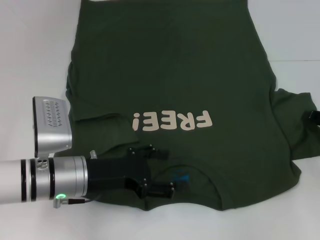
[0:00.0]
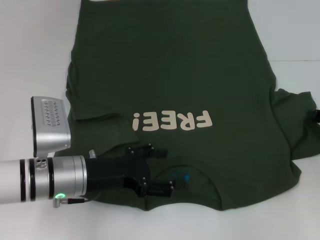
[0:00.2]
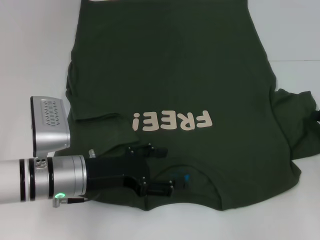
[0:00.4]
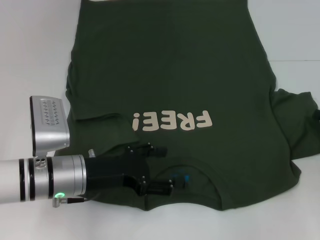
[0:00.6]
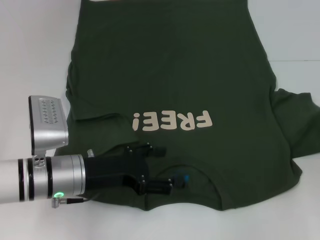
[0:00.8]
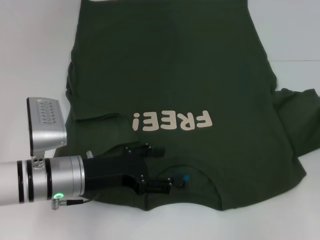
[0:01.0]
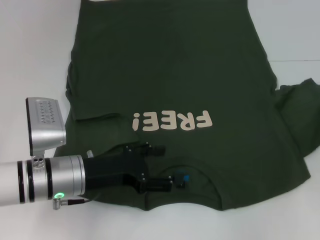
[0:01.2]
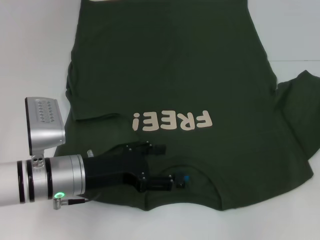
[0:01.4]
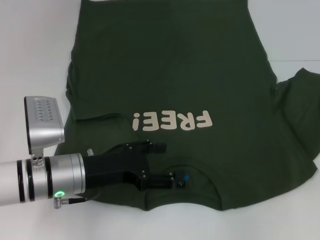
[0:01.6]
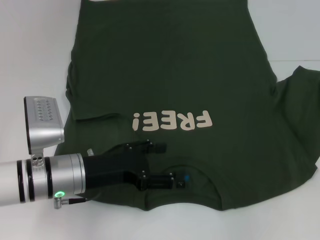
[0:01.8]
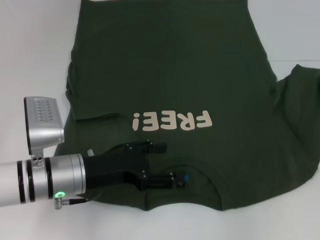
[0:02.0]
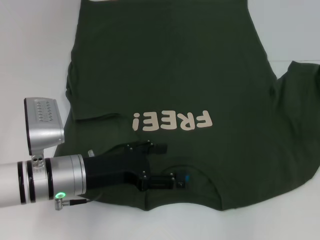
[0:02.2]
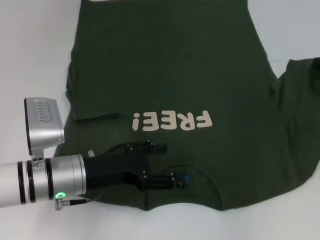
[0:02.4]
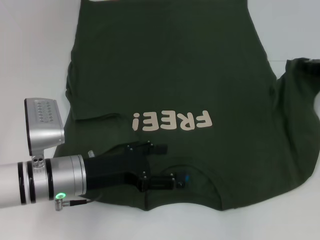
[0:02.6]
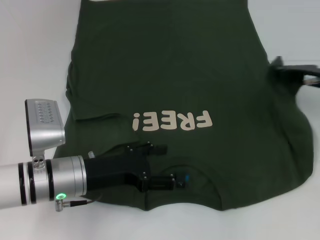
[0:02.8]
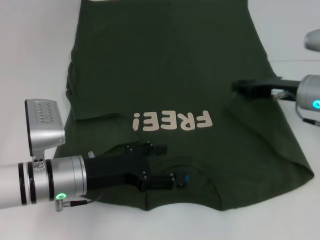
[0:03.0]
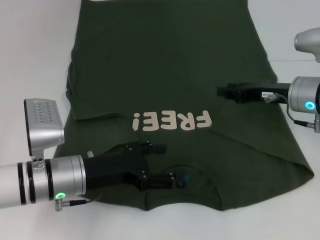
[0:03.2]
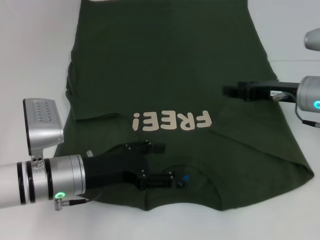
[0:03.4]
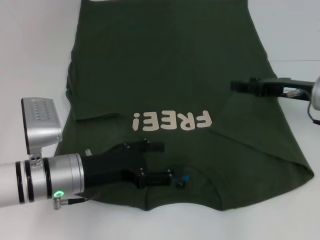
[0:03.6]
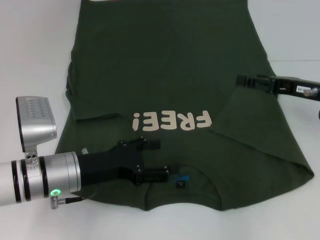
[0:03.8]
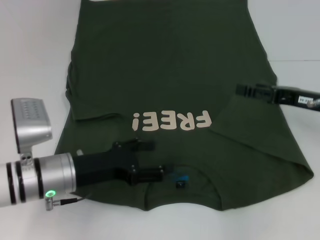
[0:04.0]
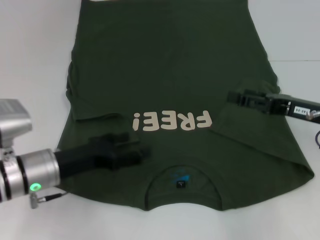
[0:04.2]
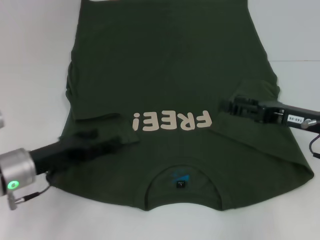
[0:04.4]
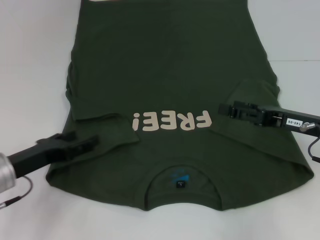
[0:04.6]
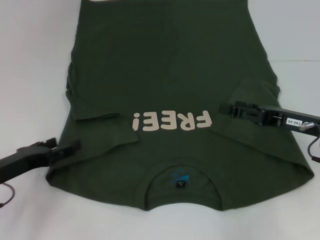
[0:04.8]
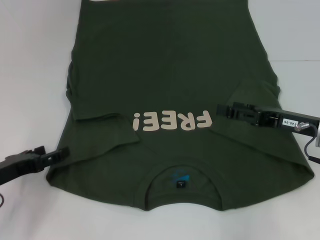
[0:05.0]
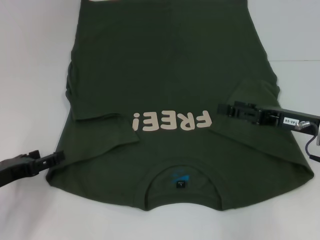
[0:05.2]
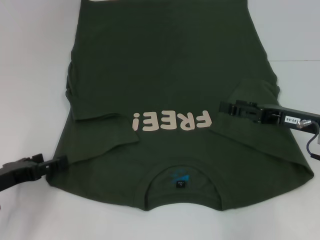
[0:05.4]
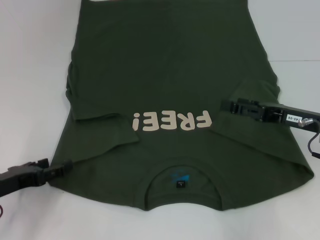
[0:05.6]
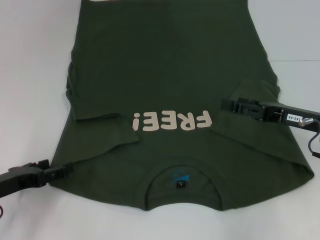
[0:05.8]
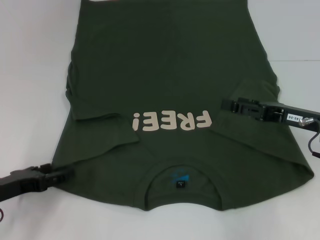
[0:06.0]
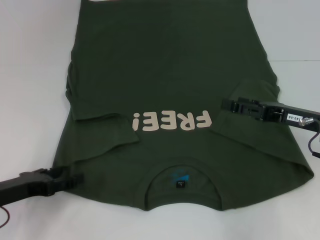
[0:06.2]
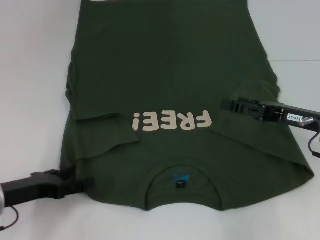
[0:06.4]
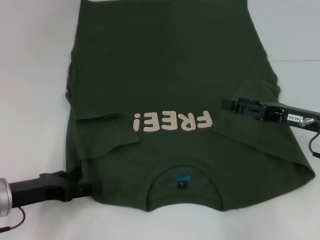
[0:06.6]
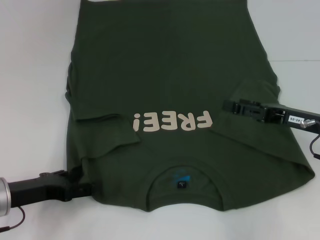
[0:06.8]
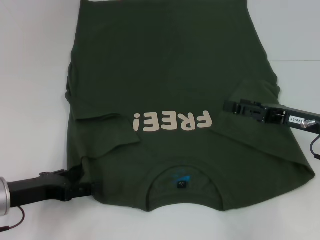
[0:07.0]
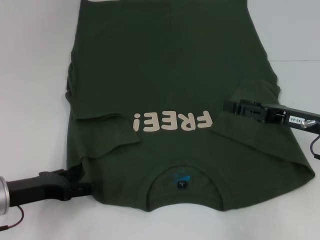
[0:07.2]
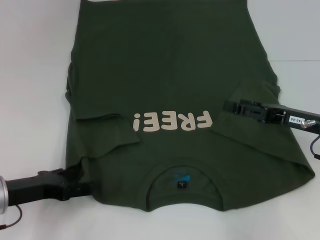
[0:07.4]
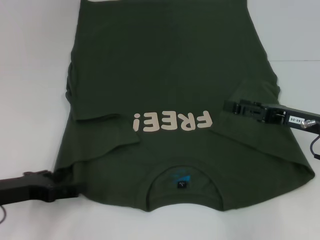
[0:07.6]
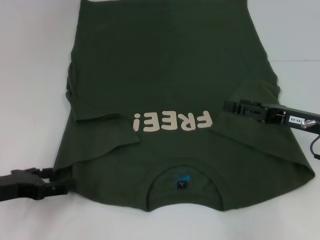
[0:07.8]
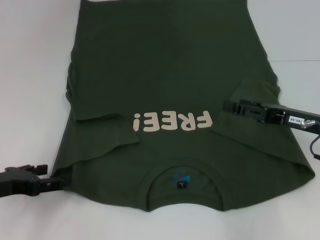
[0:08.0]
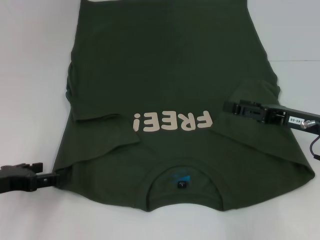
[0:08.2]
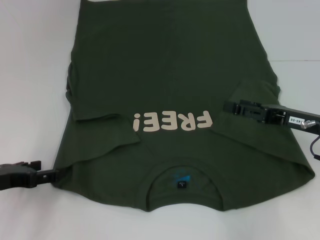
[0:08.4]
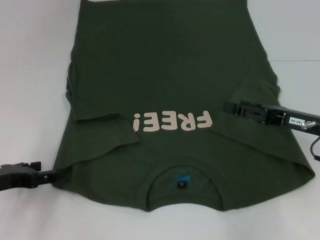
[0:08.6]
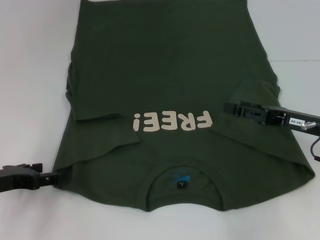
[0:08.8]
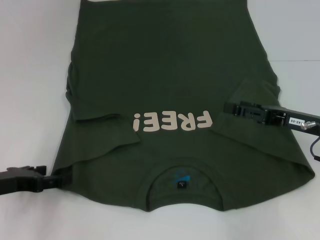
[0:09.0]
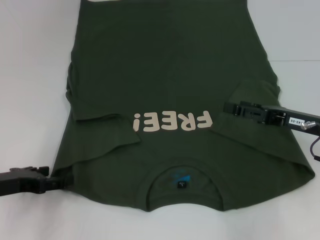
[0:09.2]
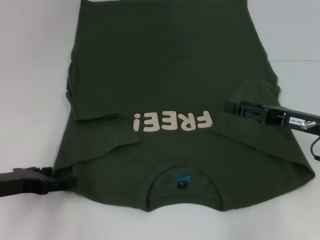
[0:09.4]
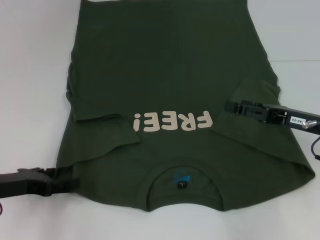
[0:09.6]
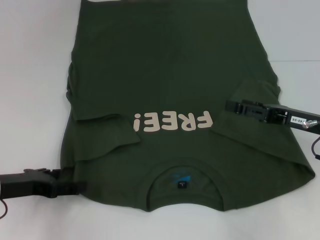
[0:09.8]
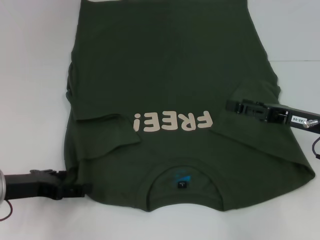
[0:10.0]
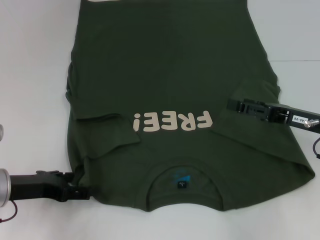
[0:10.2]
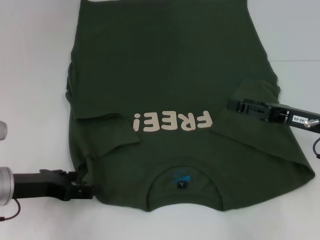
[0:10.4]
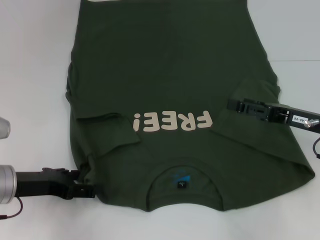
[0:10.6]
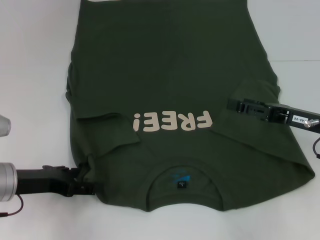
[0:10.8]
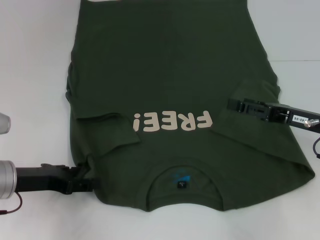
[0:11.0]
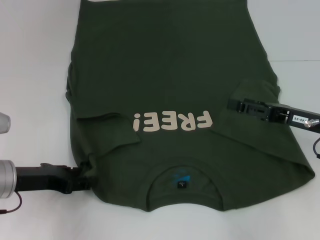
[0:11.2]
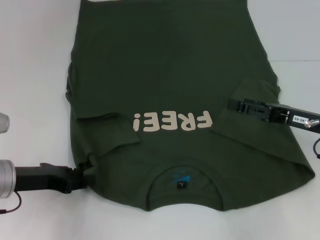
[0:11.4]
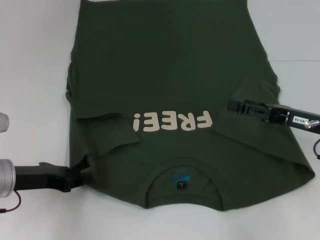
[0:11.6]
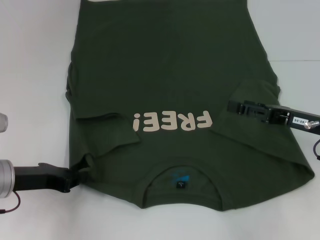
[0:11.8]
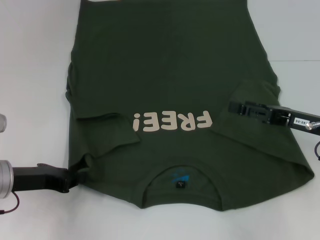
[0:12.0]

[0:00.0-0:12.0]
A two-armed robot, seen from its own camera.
Step, 0:00.0 to 0:03.4: Fold the bottom right sleeve with your right hand.
0:00.0 to 0:01.6: The right gripper changes place by some 5 cm, and closes.
0:01.6 to 0:03.0: The right gripper moves to the left, approximately 15 cm.
0:03.0 to 0:04.4: The right gripper heads backward, covering about 5 cm, and opens its fingers. Meanwhile the left gripper is displaced to the left by some 5 cm.
0:04.4 to 0:06.0: The left gripper shifts some 5 cm to the left.
0:06.0 to 0:09.0: The grippers move only a little.
0:09.0 to 0:10.4: There are only small adjustments of the grippers.
0:10.4 to 0:12.0: The left gripper closes its fingers.

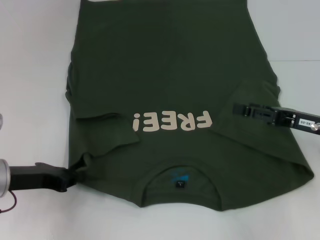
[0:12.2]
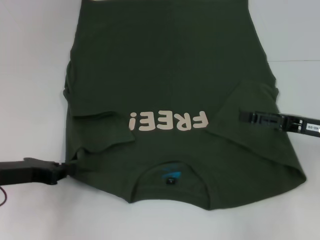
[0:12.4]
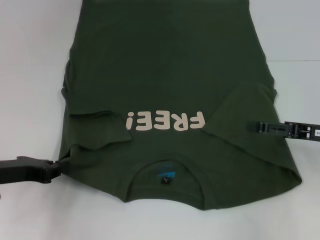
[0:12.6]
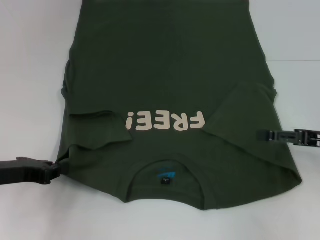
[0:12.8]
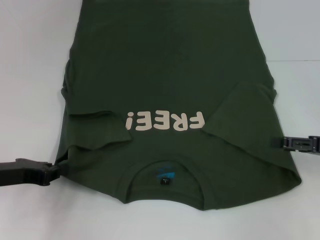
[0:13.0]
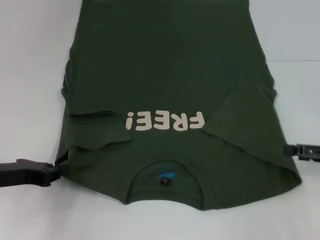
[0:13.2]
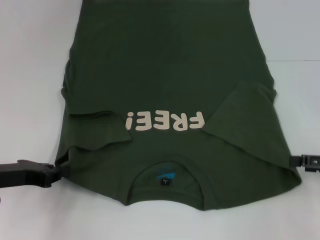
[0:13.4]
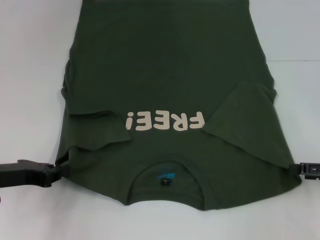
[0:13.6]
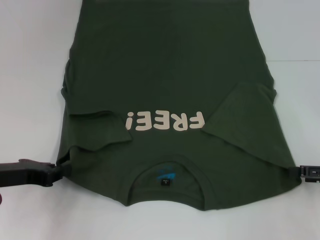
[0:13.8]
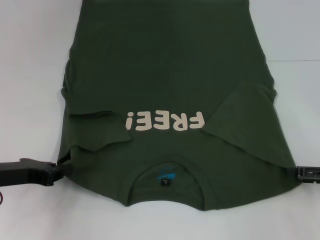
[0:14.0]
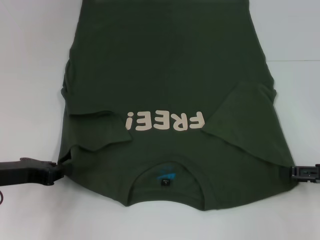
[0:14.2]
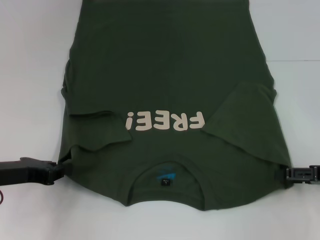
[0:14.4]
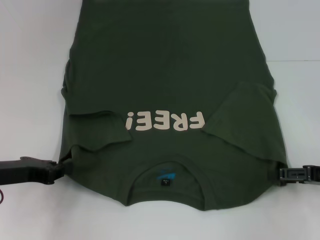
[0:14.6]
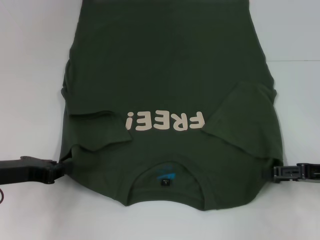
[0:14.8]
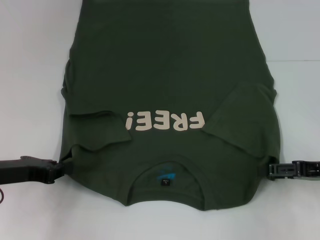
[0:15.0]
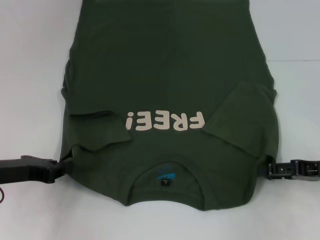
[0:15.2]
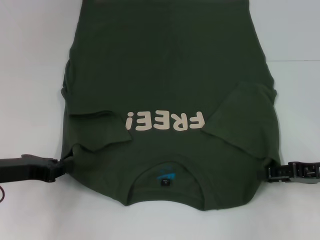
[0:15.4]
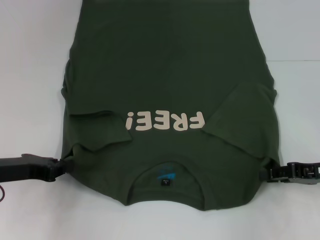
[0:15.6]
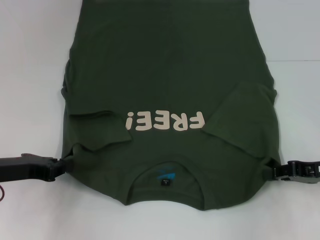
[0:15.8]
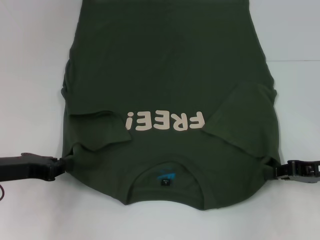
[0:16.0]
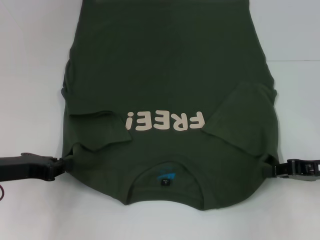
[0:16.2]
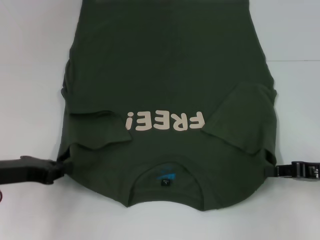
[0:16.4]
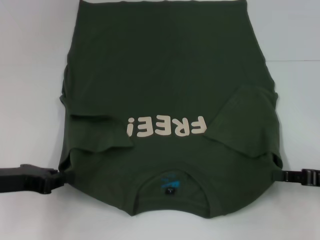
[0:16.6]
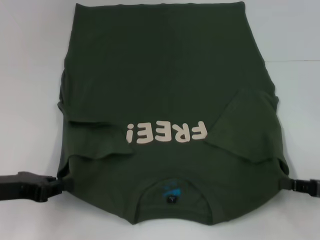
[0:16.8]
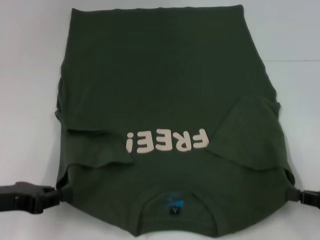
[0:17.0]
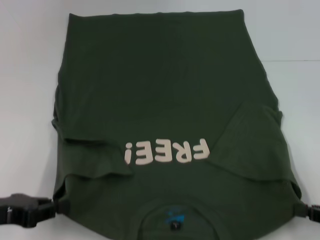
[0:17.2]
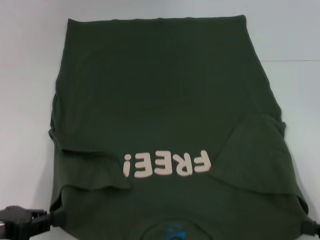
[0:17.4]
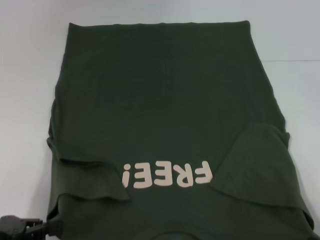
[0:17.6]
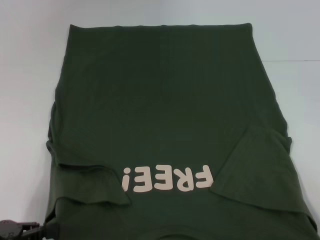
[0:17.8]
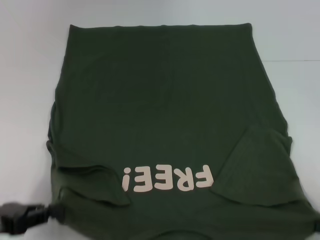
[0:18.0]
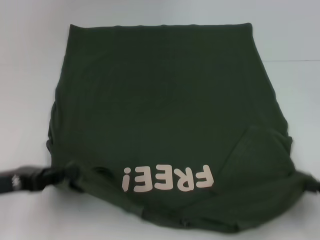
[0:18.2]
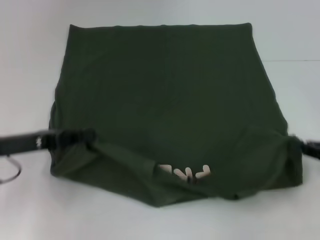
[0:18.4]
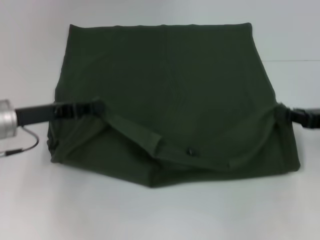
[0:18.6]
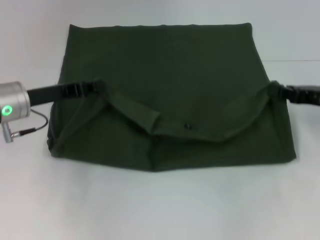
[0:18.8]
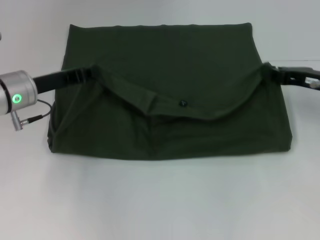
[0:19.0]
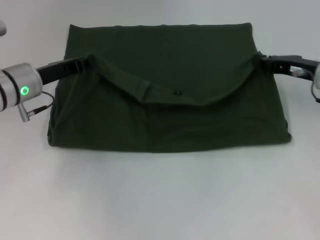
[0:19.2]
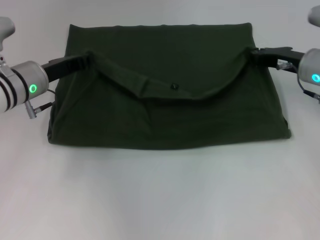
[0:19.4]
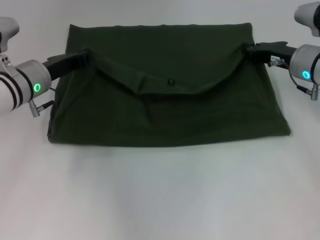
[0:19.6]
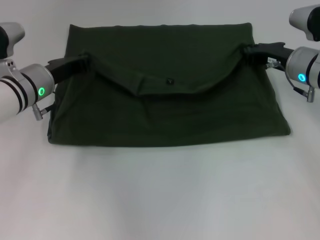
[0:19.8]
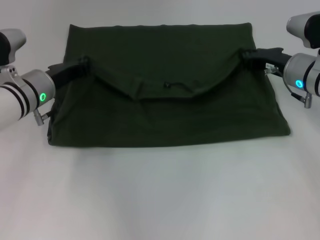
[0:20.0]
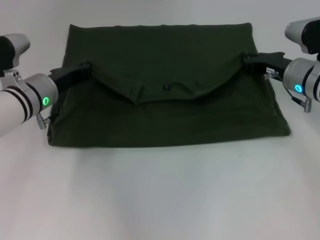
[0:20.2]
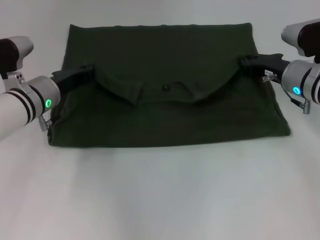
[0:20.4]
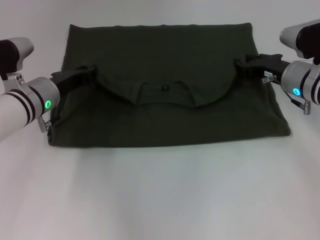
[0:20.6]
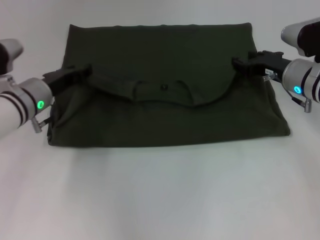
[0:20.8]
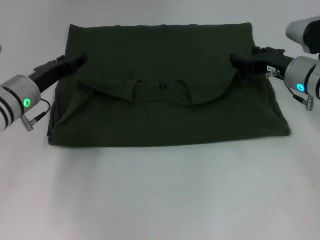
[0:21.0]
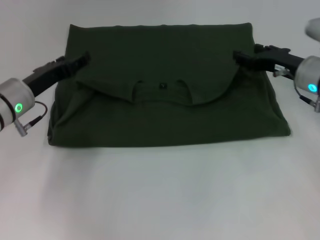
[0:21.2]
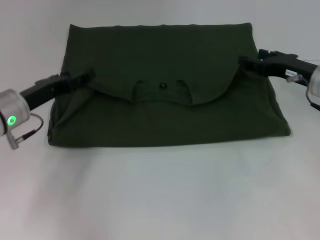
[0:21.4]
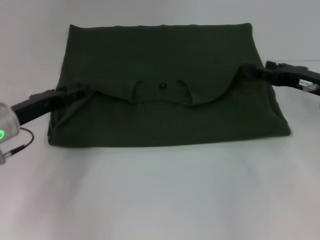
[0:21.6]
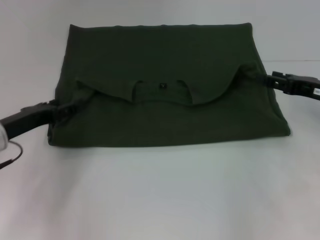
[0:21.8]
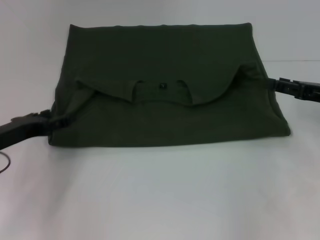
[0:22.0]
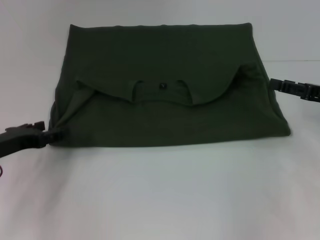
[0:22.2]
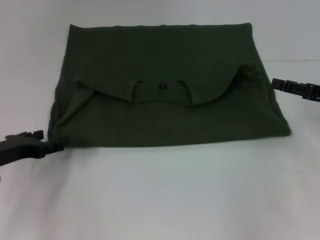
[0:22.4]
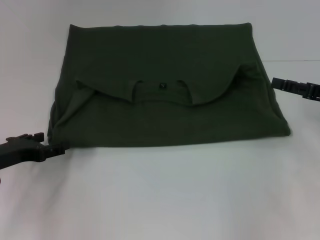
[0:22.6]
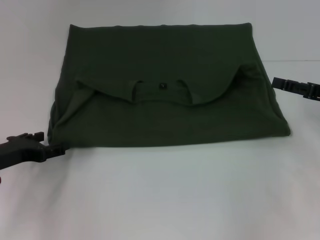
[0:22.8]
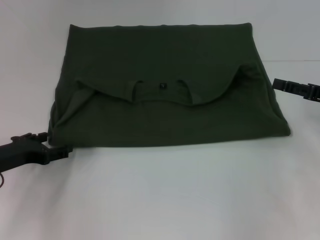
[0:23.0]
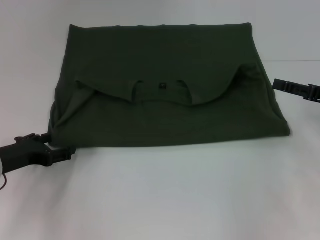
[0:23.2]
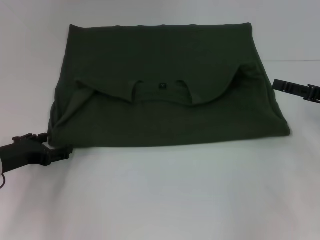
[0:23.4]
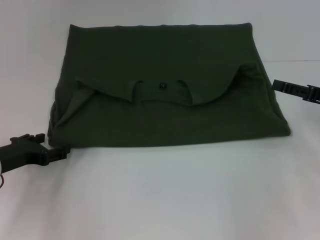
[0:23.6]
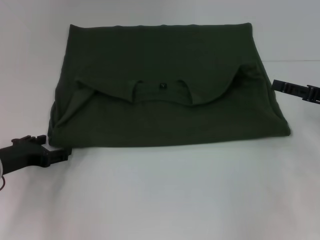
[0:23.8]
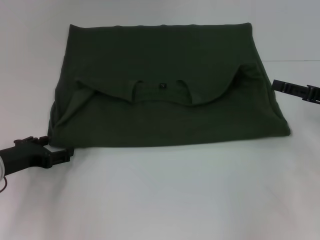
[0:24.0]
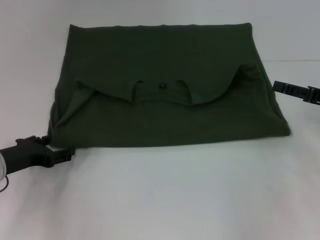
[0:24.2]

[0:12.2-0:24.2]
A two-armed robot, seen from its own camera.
Step, 0:12.2 to 0:16.2: Grab the bottom right corner with your right hand.
Step, 0:16.4 to 0:20.6: Fold the clothes with your left hand.
Step, 0:16.4 to 0:20.6: Fold the clothes with your right hand.
0:12.2 to 0:13.8: The right gripper is displaced to the right by some 10 cm.
0:13.8 to 0:15.2: The right gripper changes place by about 5 cm.
0:15.2 to 0:16.6: The right gripper closes up.
0:16.6 to 0:18.2: The left gripper goes backward and returns, approximately 10 cm each way; the right gripper is displaced backward by approximately 5 cm.
0:18.2 to 0:19.8: The left gripper travels forward and to the right by roughly 20 cm; the right gripper goes approximately 25 cm forward and to the left.
0:19.8 to 0:21.2: The left gripper opens its fingers. Meanwhile the right gripper opens.
0:21.2 to 0:22.6: The left gripper heads backward and to the left, covering roughly 10 cm. The right gripper shifts about 10 cm to the right and backward.
0:22.6 to 0:24.2: The grippers move only a little.
